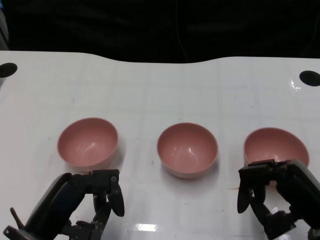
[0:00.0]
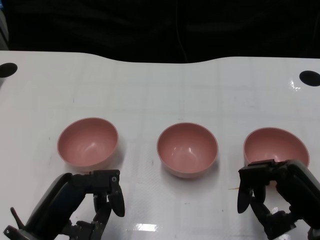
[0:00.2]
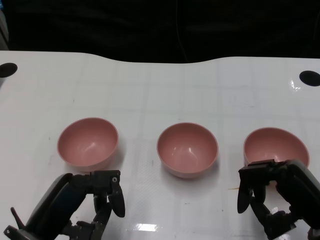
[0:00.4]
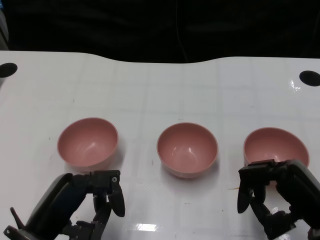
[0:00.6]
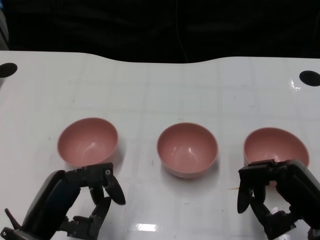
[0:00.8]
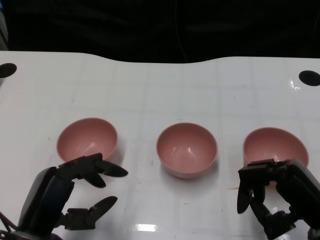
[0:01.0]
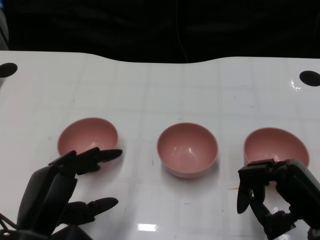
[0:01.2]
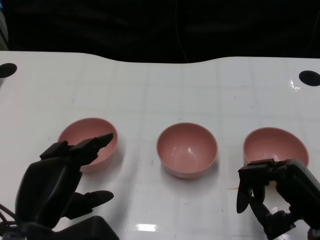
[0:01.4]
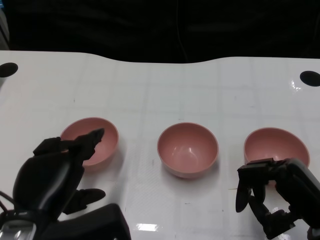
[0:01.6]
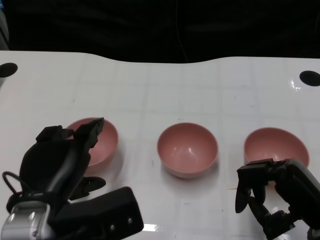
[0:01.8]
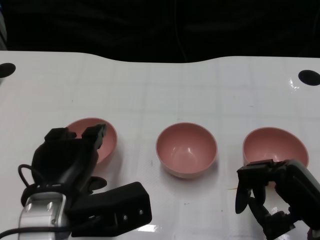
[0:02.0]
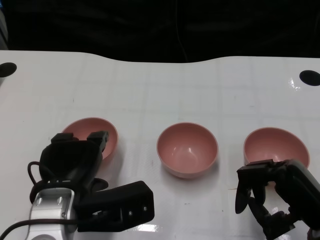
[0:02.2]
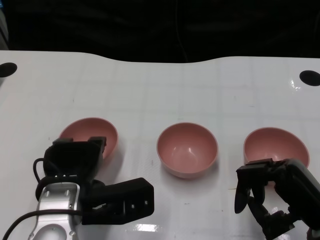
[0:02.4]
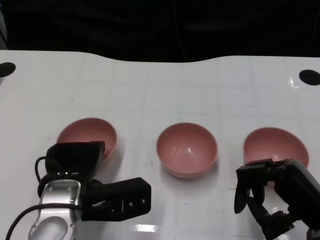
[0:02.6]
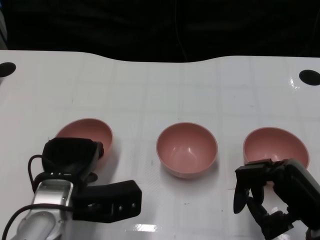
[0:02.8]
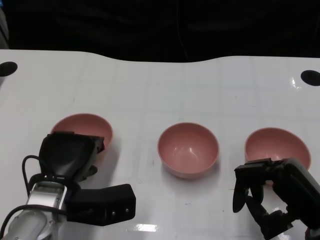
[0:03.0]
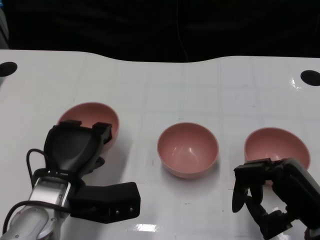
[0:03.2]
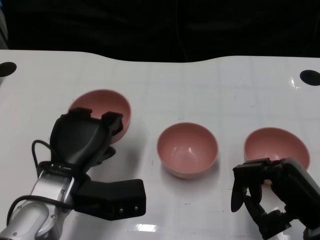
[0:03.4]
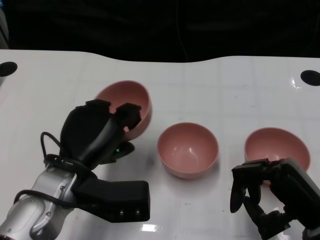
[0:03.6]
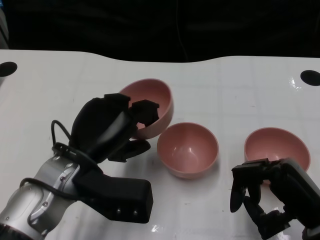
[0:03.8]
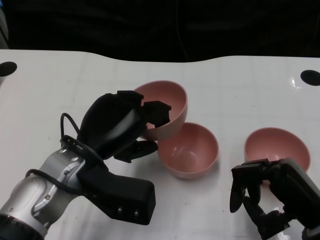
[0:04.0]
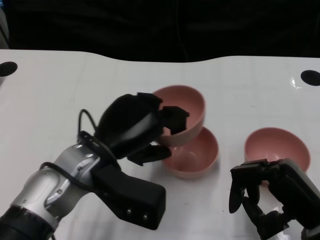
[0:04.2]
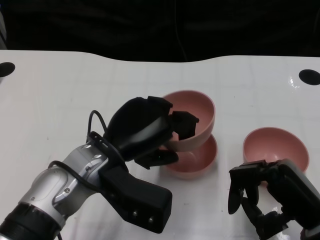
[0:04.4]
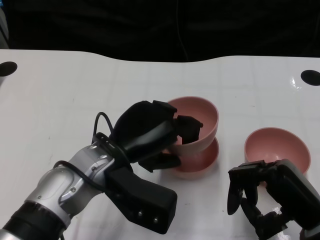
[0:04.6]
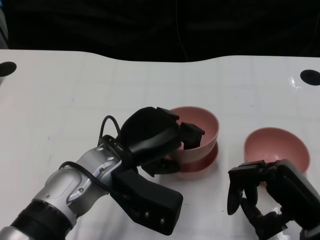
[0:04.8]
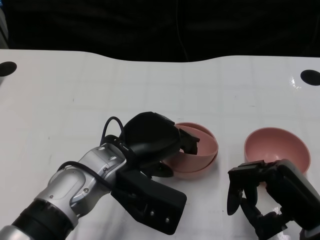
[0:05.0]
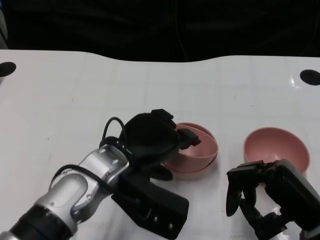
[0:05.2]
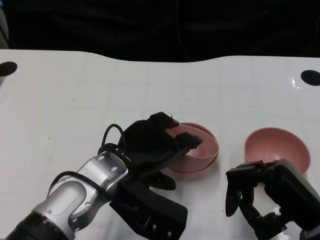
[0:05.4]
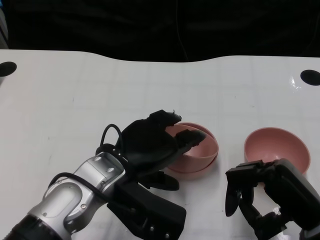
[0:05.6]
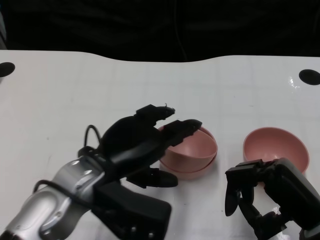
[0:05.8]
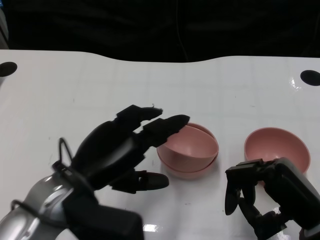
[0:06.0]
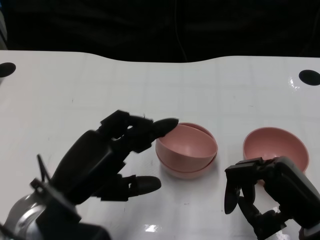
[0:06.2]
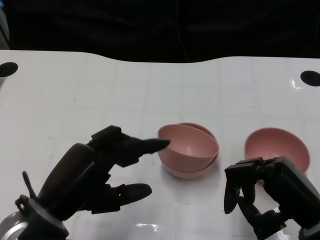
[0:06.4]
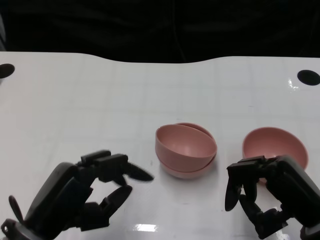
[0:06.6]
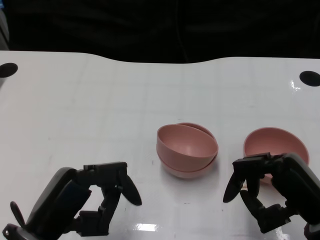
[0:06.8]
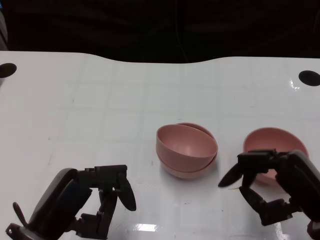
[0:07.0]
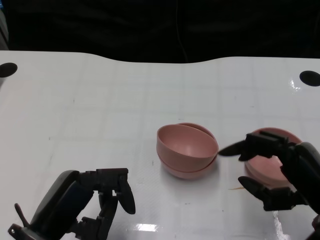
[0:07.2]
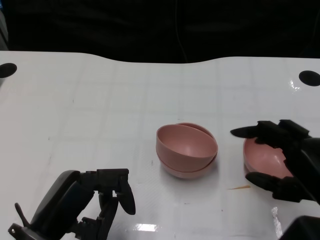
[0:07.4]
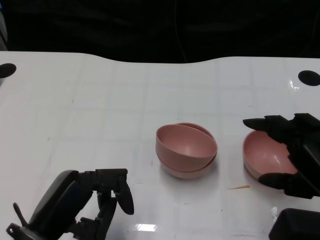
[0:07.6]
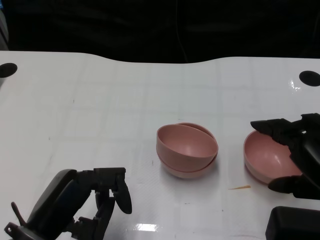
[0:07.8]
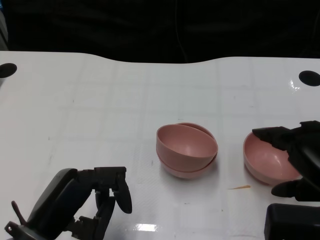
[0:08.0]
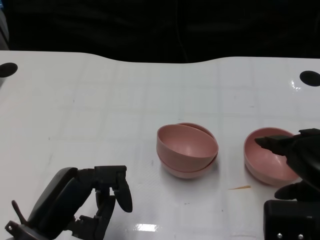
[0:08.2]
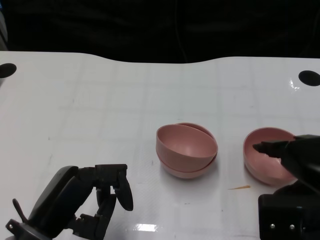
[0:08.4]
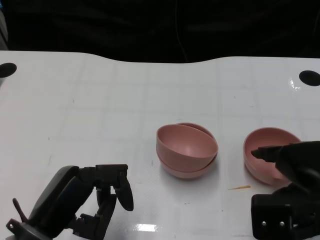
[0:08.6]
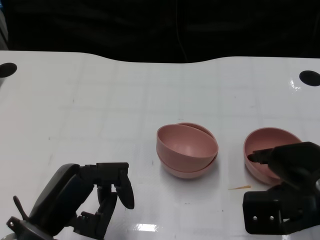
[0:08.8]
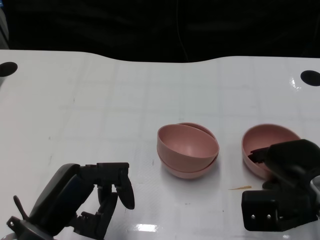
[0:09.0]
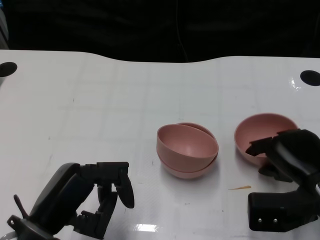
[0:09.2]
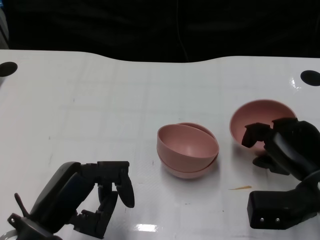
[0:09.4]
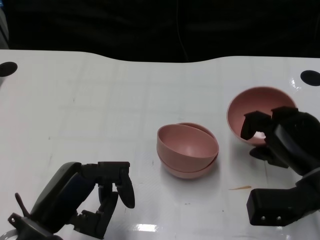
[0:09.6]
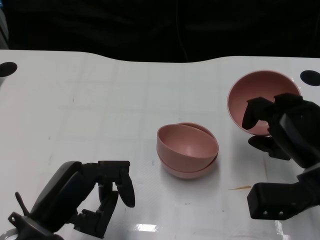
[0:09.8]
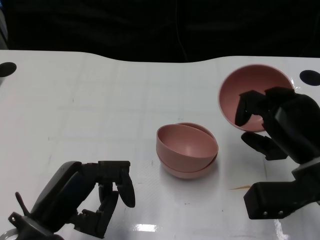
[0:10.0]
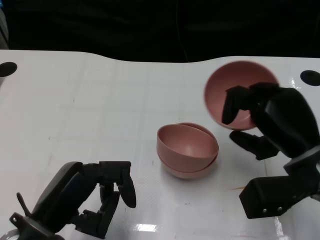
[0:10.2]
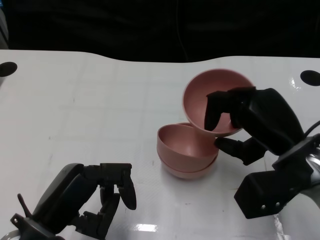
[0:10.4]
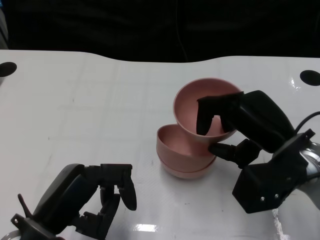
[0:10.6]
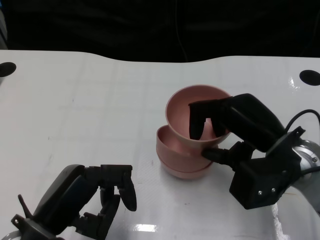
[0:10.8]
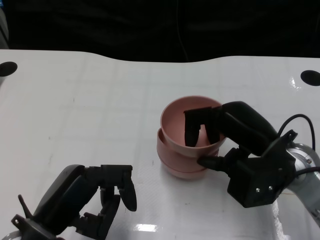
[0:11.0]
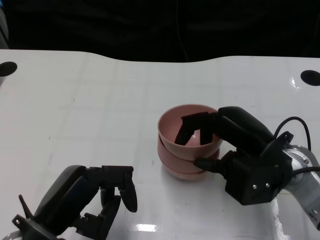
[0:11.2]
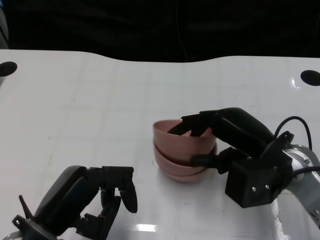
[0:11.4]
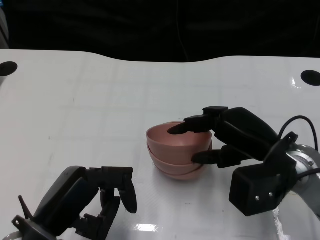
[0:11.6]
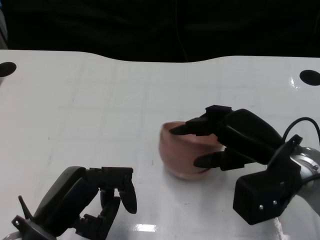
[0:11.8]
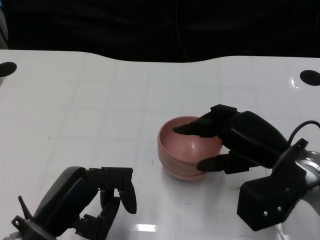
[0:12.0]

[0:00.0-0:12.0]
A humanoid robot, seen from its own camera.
Task of the whole recording: Pick up the bowl on one side of the table and place it on top of the middle bowl, then pick up the bowl on the other side of the table and place it on top of the middle bowls.
Step, 0.8 to 3.0 s: Grasp the bowl on the left with the left gripper.
Step, 3.2 to 5.6 s: Place the bowl on the left onto the bowl in the middle with left gripper.
Step, 5.8 to 9.4 s: Grasp the bowl on the right with the right gripper.
1.6 to 3.0 s: The left hand moves forward and downward, roughly 10 cm.
3.0 to 4.4 s: The left hand is displaced upward and to the right by about 10 cm.
4.4 to 6.0 s: The left hand ends up roughly 5 cm from where it was.
6.0 to 7.6 s: The right hand shifts roughly 5 cm upward; the left hand goes some 5 cm backward.
7.6 to 9.0 s: The right hand travels forward and downward by about 10 cm.
9.0 to 10.4 s: The right hand moves roughly 5 cm.

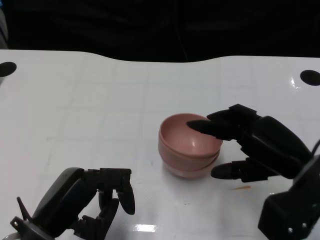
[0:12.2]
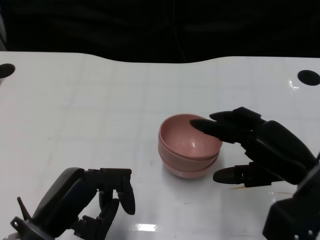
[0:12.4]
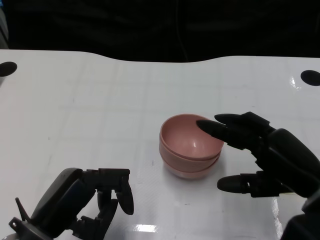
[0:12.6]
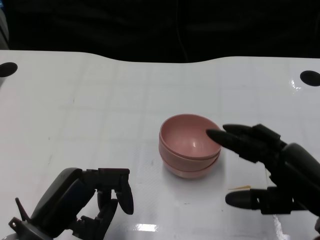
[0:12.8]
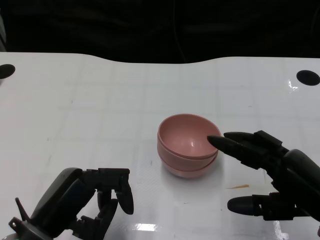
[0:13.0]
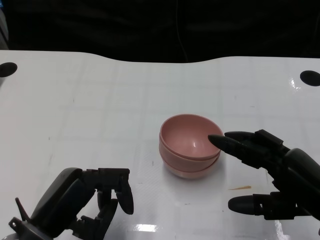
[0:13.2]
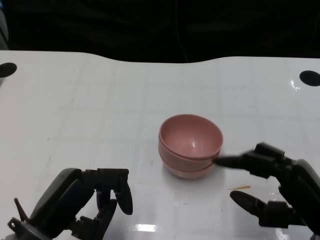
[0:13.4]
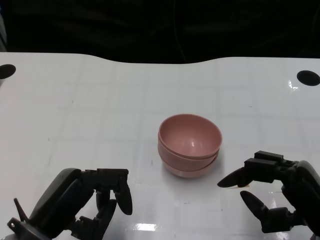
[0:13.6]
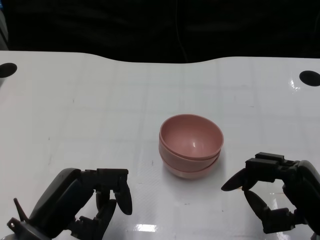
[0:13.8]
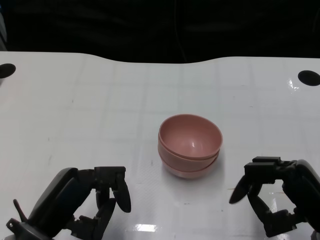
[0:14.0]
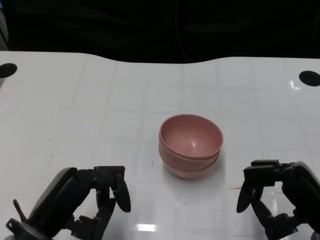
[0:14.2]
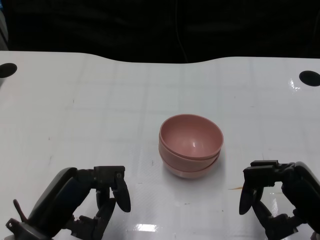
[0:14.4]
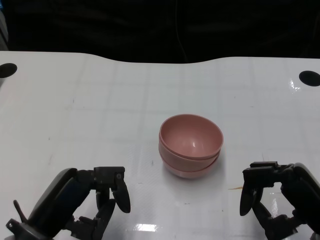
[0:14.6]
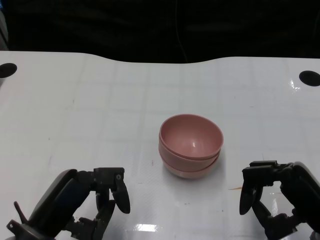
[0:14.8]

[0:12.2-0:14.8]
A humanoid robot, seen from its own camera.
Task of the whole recording: Pick up the bowl on one side of the table and place it on top of the middle bowl, then pick up the bowl on the other side of the table and place it on top of the middle bowls.
12.2 to 13.4 s: The right hand travels backward by some 5 cm.
13.4 to 14.8 s: The hands stay close to where they were, moving slightly.

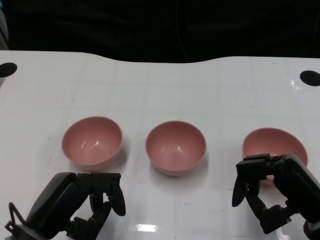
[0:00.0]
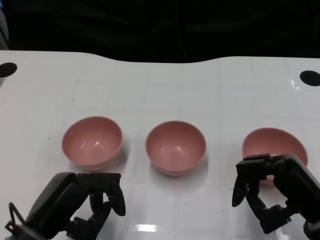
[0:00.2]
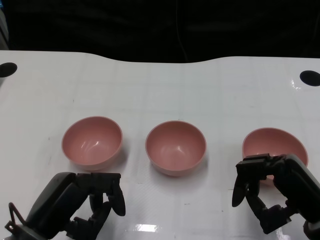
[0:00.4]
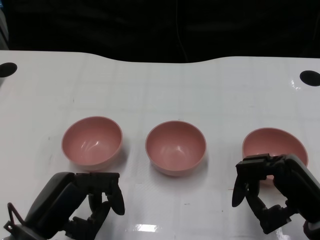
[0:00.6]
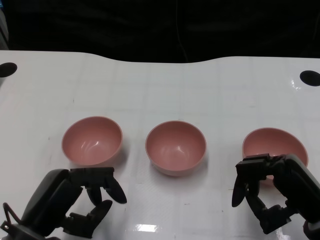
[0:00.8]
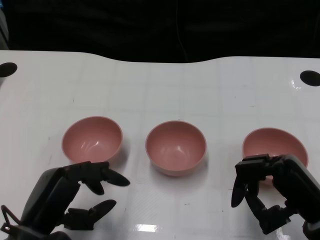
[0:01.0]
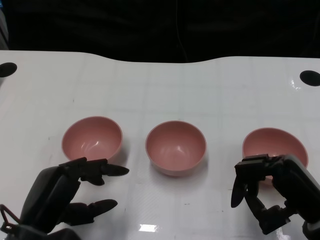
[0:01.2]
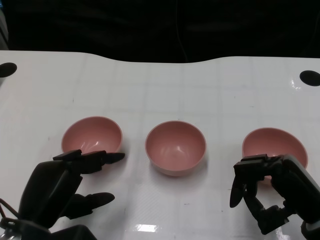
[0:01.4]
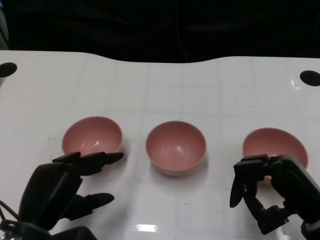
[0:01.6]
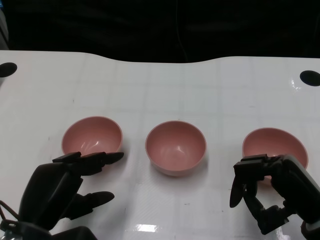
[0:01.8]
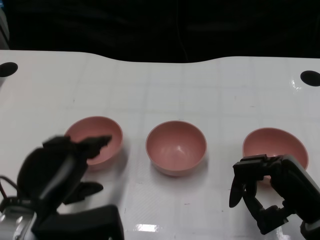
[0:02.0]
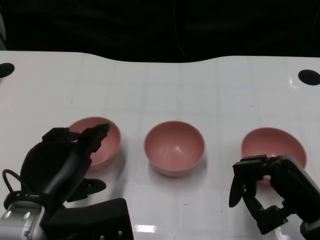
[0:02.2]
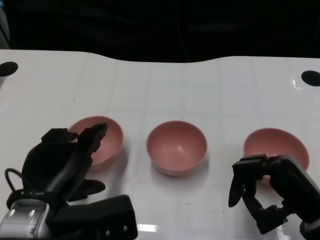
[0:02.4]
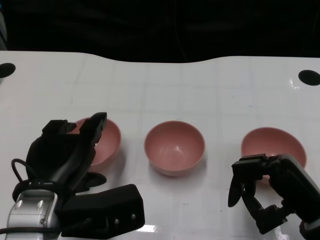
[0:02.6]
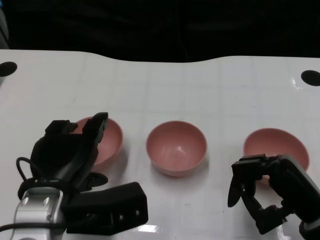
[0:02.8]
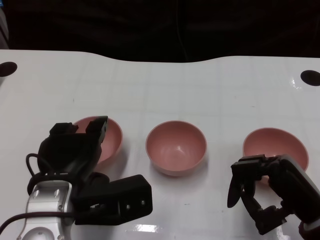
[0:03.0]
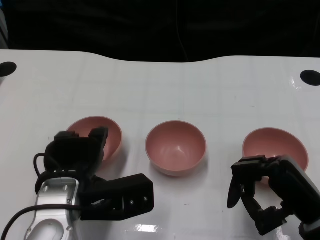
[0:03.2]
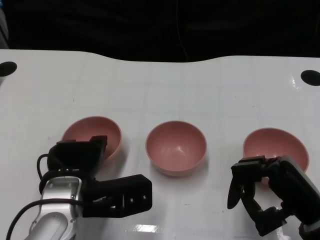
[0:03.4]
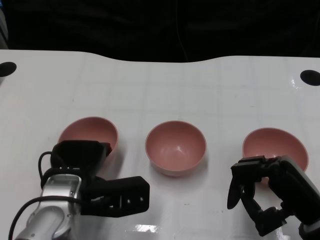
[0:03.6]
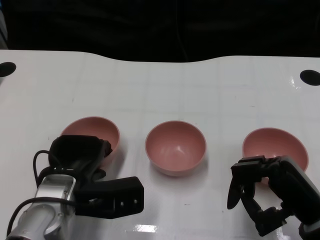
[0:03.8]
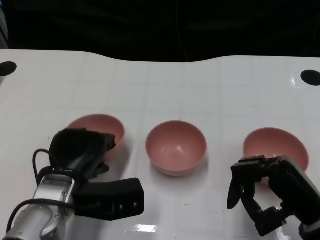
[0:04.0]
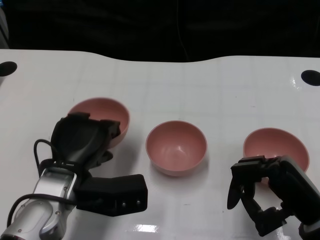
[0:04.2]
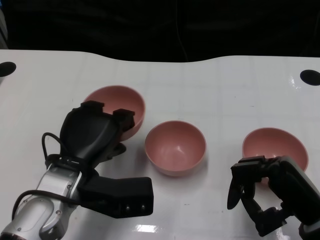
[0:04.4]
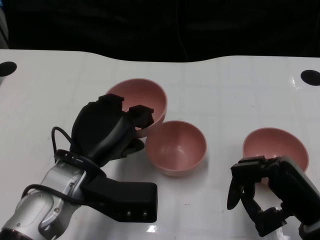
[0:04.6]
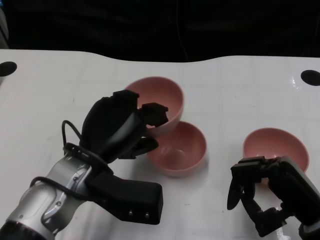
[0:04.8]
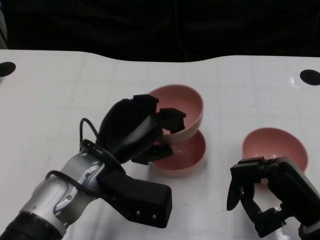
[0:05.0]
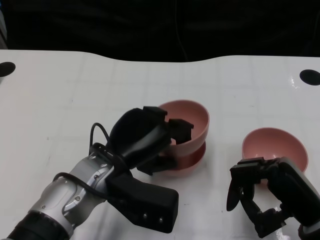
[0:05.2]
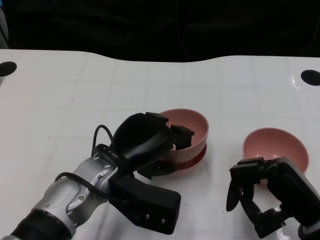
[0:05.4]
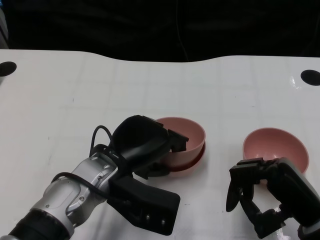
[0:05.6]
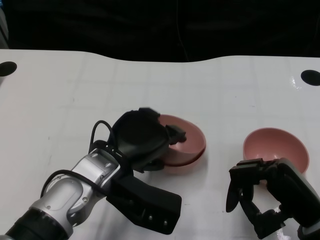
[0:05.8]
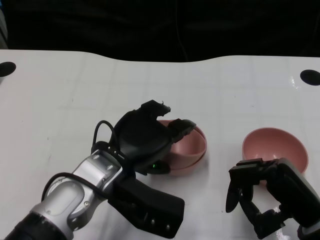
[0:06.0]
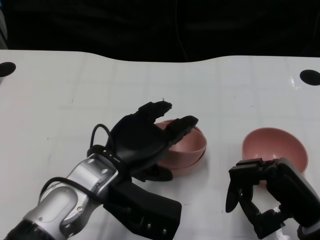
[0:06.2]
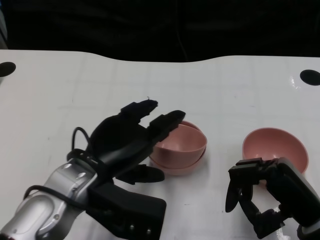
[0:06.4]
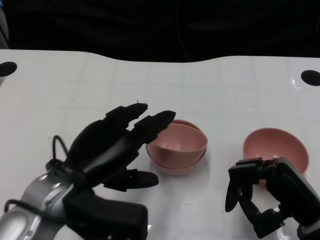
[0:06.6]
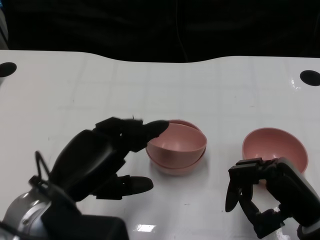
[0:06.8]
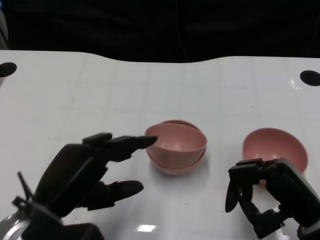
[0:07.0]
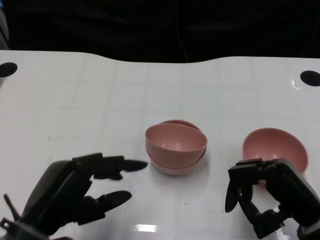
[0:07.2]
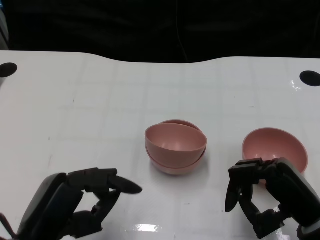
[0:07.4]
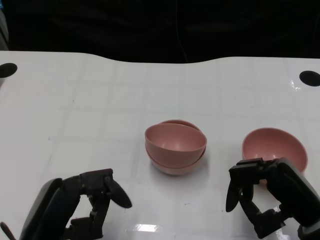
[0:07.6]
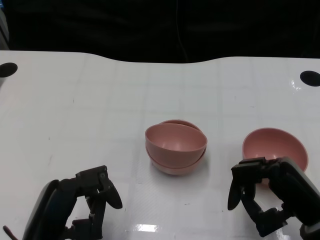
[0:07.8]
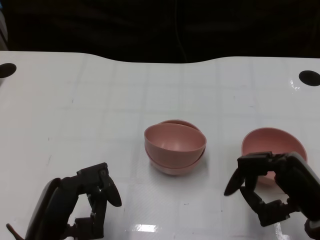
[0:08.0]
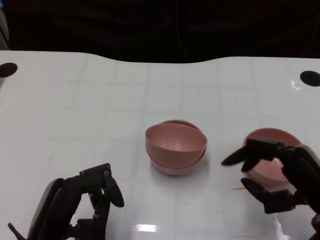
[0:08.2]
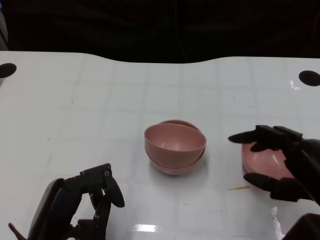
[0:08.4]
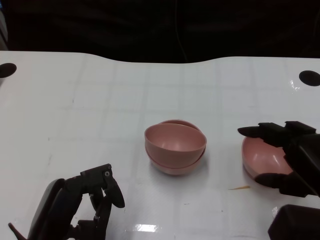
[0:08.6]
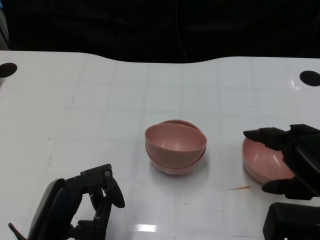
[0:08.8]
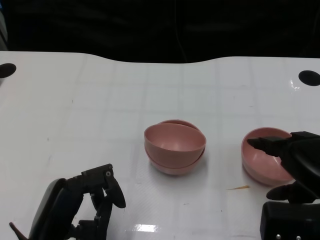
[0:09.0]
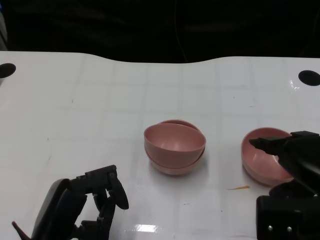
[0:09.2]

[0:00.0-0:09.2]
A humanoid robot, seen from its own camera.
Task of the whole recording: Pick up the bowl on one side of the table and place it on top of the middle bowl, then pick up the bowl on the other side of the table and place it on top of the middle bowls.
Step, 0.8 to 3.8 s: Grasp the bowl on the left with the left gripper.
Step, 4.2 to 6.6 s: Place the bowl on the left onto the bowl in the middle with left gripper.
1.6 to 3.0 s: The left hand shifts by roughly 5 cm.
6.2 to 7.6 s: The left hand goes roughly 15 cm backward and to the left.
7.6 to 9.2 s: The right hand moves upward, approximately 5 cm.
